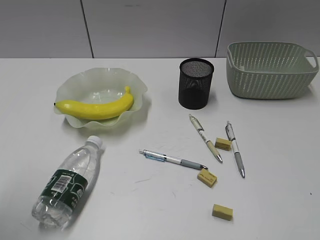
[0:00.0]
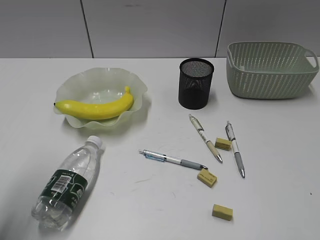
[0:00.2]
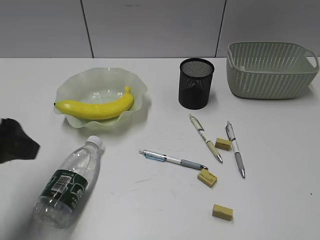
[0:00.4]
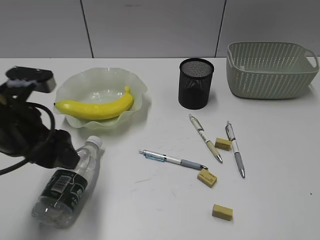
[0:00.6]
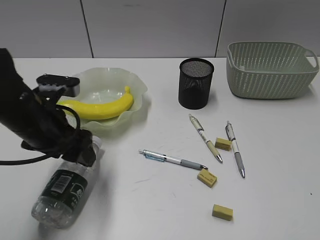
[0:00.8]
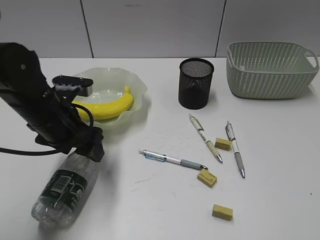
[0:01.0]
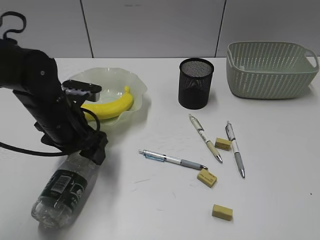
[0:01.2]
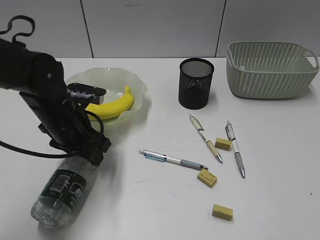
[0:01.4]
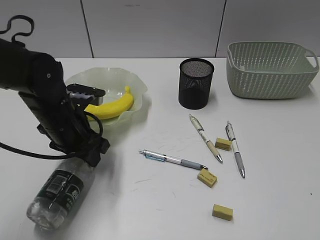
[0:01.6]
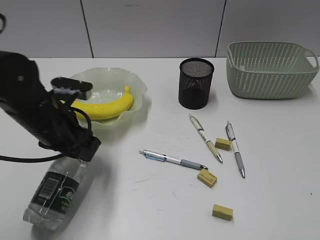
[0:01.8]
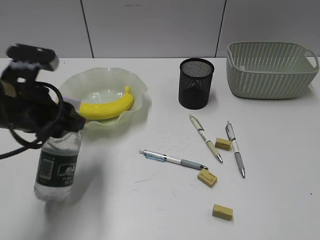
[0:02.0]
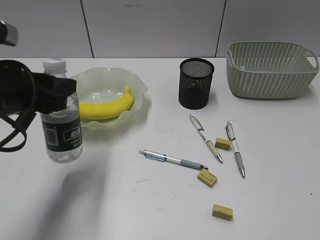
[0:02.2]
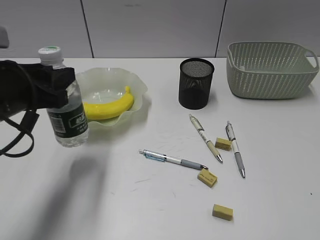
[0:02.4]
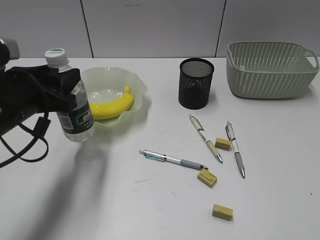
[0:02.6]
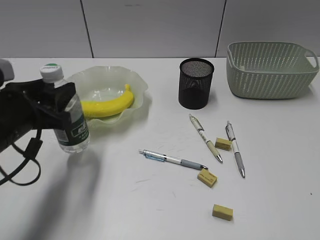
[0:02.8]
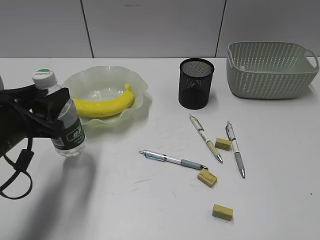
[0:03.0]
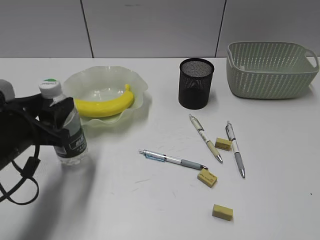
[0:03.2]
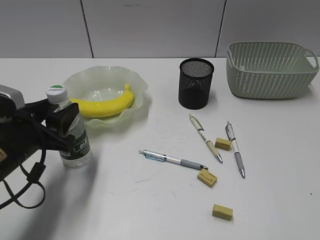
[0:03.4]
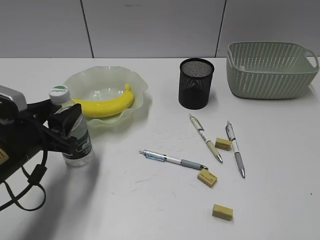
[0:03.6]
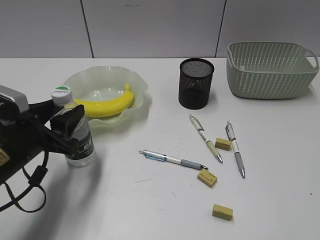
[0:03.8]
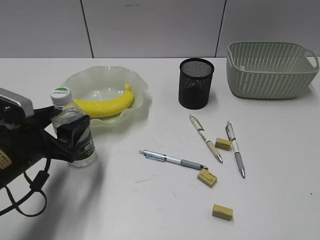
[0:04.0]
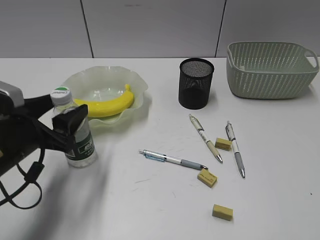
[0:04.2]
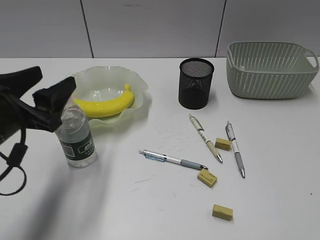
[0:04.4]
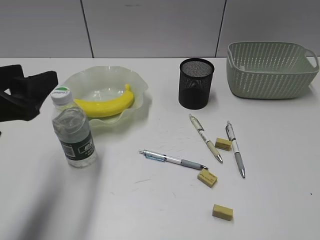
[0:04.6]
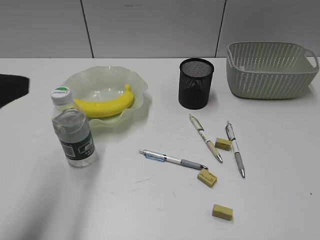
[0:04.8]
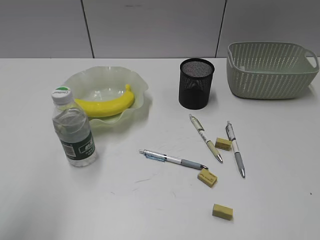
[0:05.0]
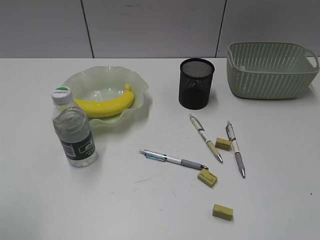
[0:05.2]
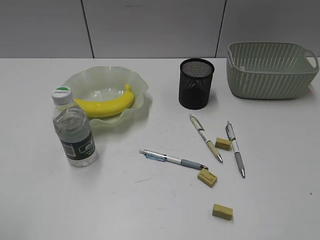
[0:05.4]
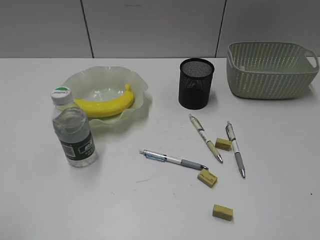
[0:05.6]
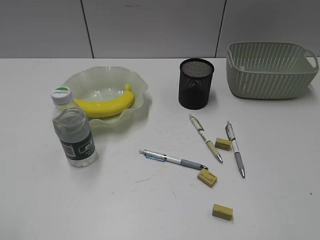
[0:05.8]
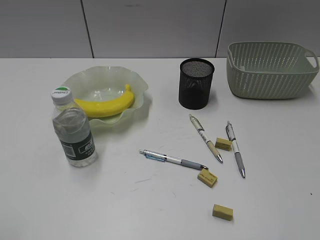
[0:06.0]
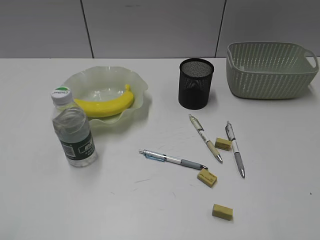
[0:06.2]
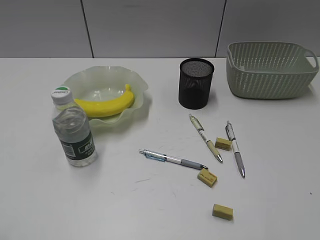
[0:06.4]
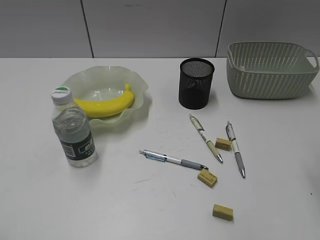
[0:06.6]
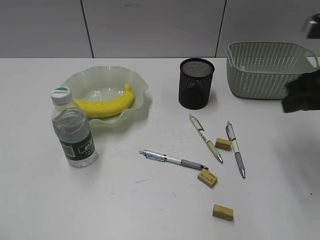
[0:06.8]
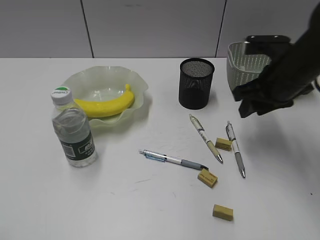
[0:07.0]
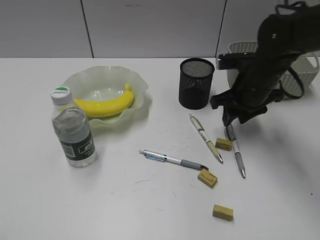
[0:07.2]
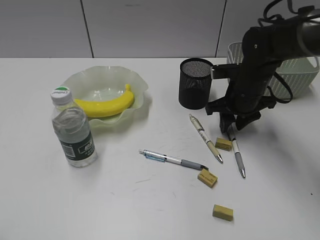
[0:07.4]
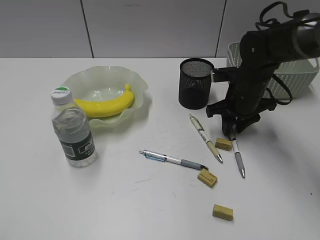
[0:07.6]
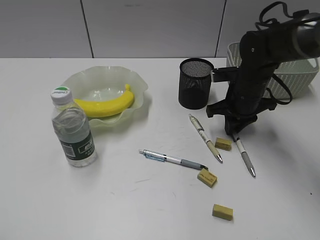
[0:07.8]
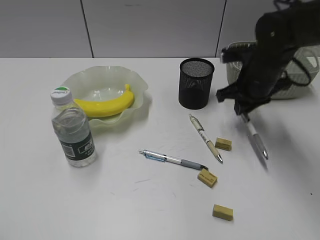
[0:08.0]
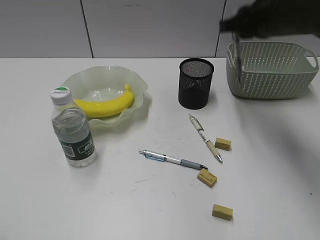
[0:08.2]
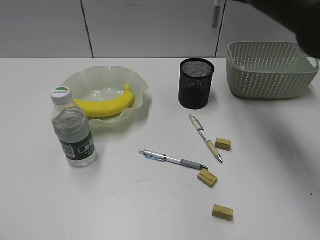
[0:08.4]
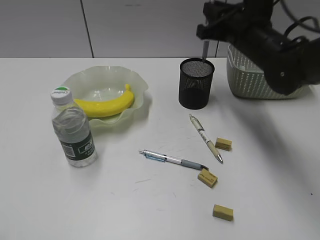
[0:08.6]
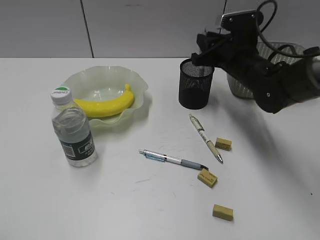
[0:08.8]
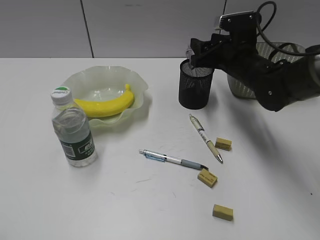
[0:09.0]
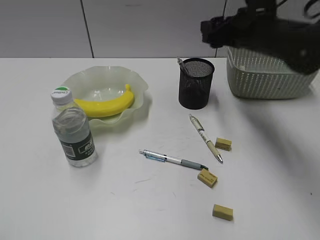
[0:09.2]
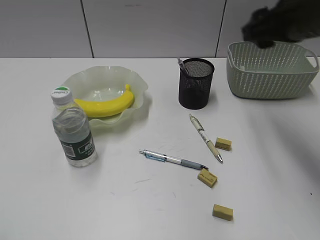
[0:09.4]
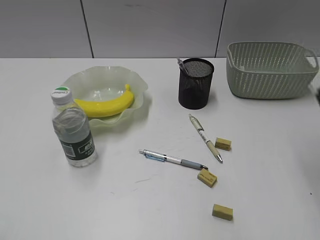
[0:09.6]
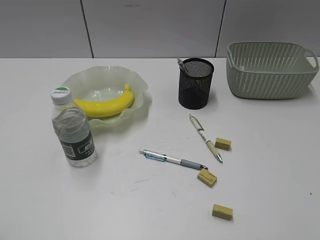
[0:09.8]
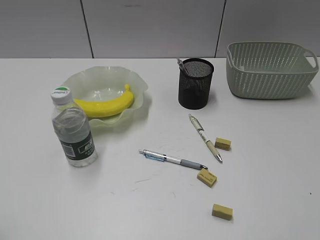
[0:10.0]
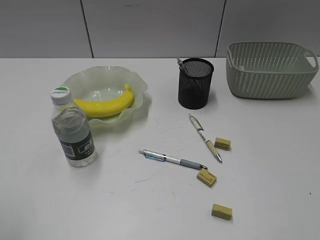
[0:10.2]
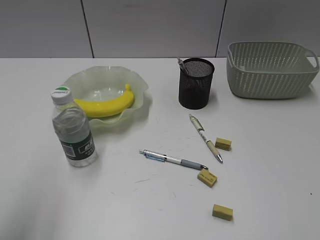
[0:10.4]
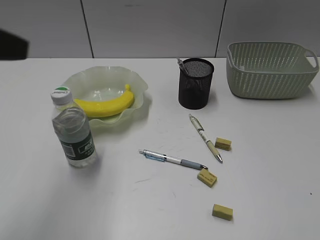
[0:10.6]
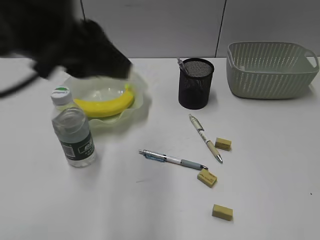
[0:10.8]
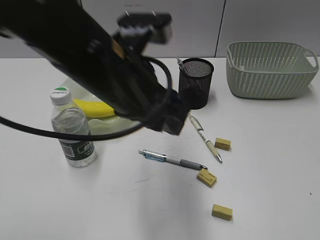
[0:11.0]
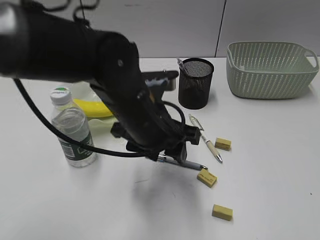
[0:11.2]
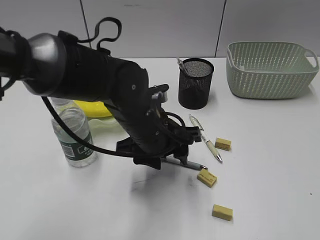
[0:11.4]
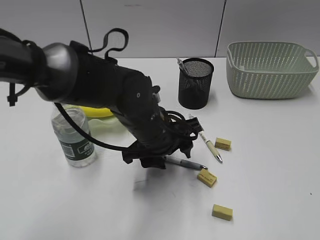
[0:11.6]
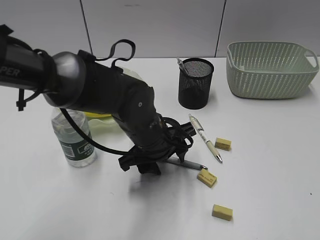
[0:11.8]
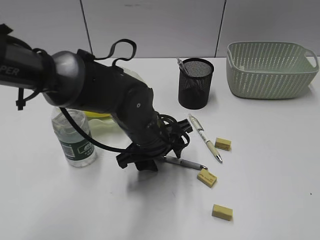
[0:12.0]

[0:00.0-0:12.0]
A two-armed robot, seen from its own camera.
Step, 0:00.0 to 0:01.4: Grasp the bottle with left gripper.
Step, 0:01.6 to 0:04.2: Stand the bottle with left gripper.
Step, 0:04.4 to 0:07.8: Grasp the gray pen with right gripper.
Step, 0:08.0 to 0:09.0: Place the gray pen in pen holder with right gripper.
0:00.0 to 0:01.6: The left gripper moves forward, downward and to the right, about 30 cm.
0:01.6 to 0:03.0: The left gripper travels backward and to the left by about 10 cm.
0:03.0 to 0:04.4: The left gripper opens up.
0:04.4 to 0:06.0: The left gripper moves backward, to the left and upward, some 25 cm.
0:06.0 to 0:07.6: The right gripper is displaced forward and downward by roughly 40 cm.
0:07.6 to 0:09.0: The right gripper travels upward and back again, roughly 20 cm each way, and opens up.
0:09.0 to 0:10.4: The left gripper shifts roughly 10 cm forward; the right gripper is displaced backward and to the right by approximately 40 cm.
0:10.4 to 0:12.0: The left gripper heads to the right, downward and forward, covering about 40 cm.

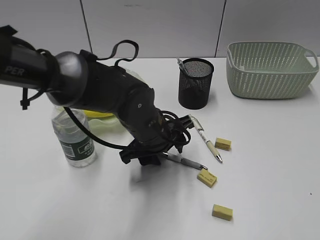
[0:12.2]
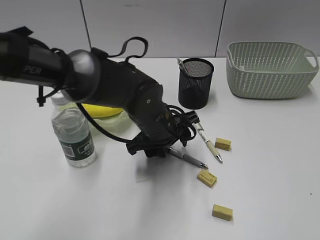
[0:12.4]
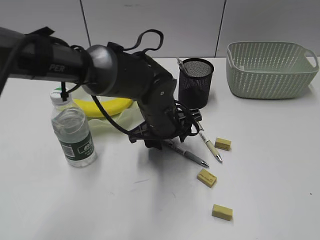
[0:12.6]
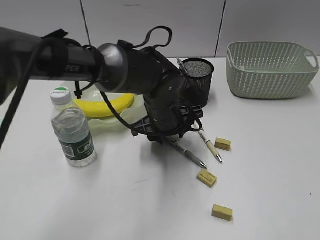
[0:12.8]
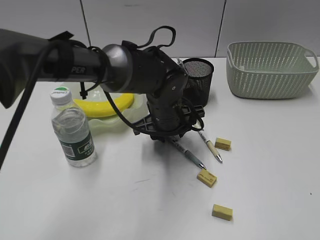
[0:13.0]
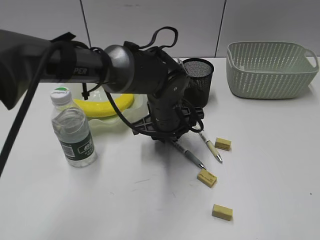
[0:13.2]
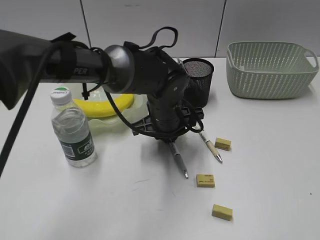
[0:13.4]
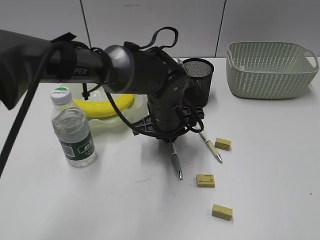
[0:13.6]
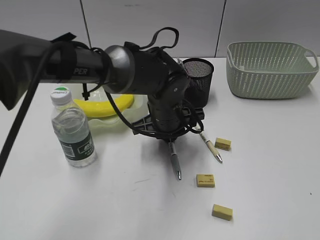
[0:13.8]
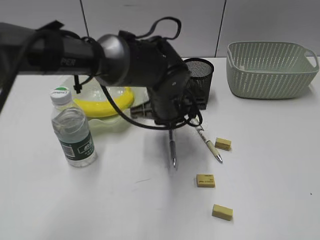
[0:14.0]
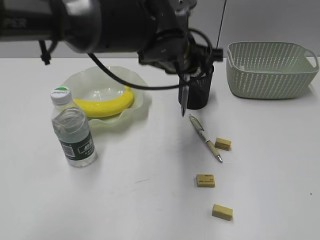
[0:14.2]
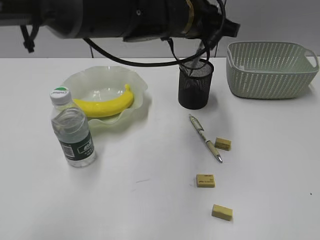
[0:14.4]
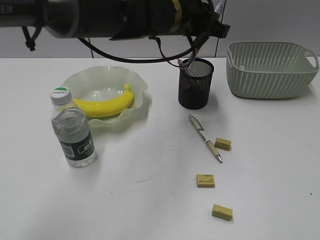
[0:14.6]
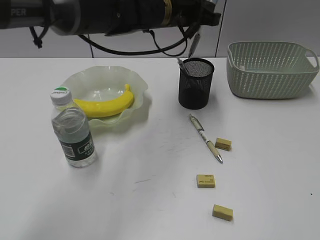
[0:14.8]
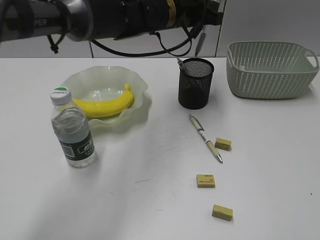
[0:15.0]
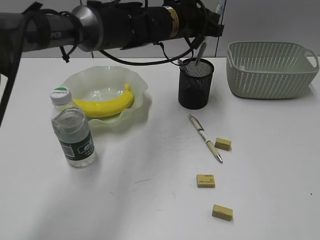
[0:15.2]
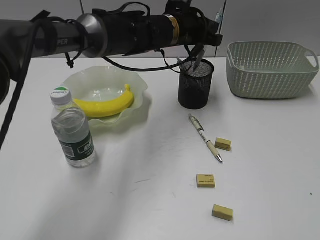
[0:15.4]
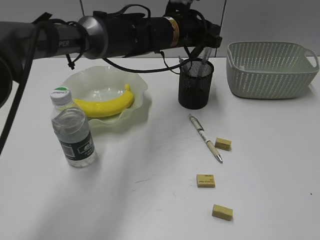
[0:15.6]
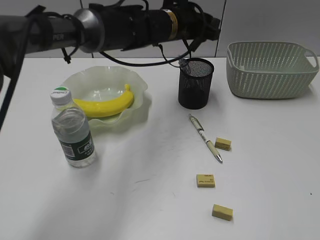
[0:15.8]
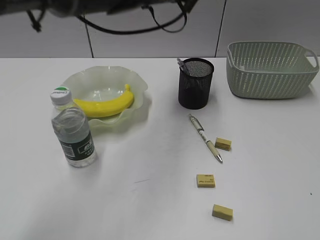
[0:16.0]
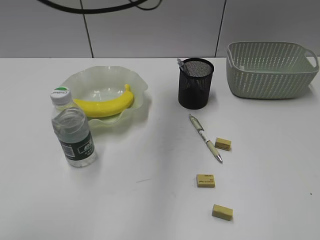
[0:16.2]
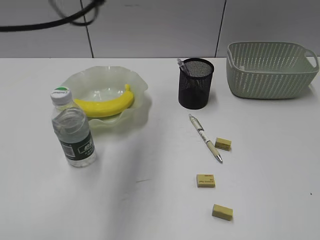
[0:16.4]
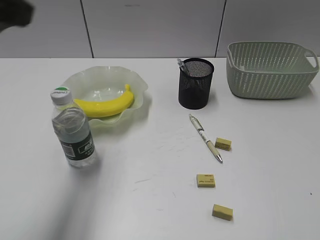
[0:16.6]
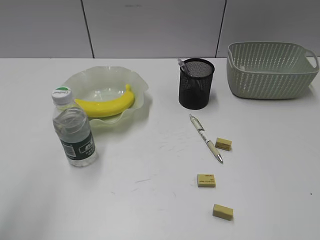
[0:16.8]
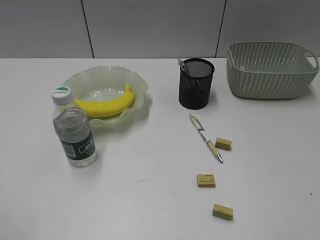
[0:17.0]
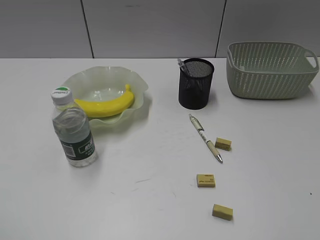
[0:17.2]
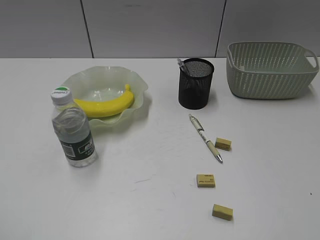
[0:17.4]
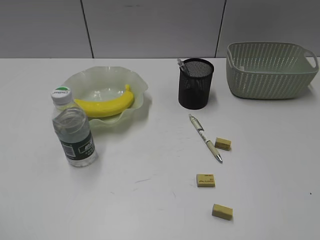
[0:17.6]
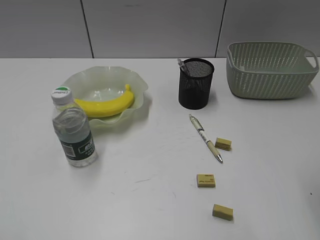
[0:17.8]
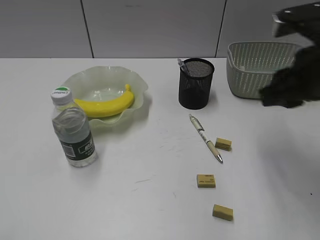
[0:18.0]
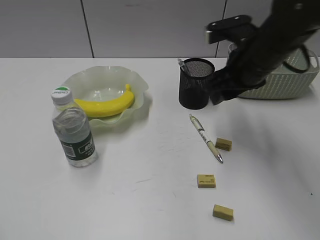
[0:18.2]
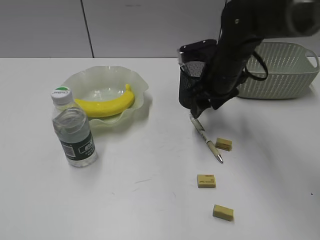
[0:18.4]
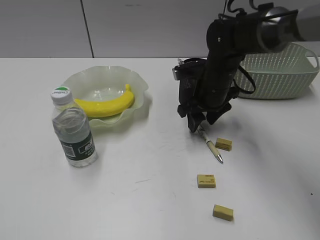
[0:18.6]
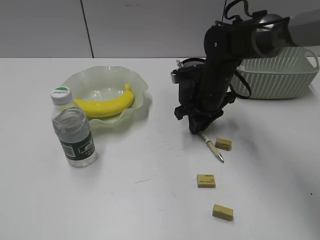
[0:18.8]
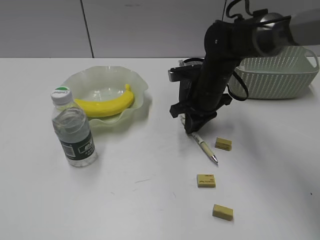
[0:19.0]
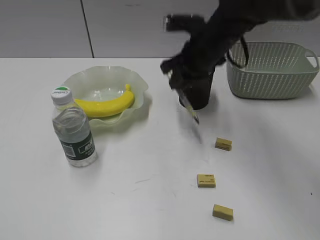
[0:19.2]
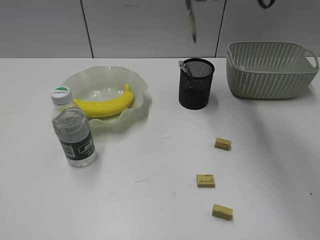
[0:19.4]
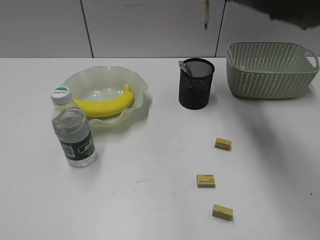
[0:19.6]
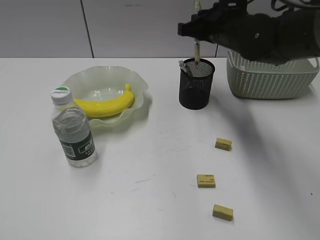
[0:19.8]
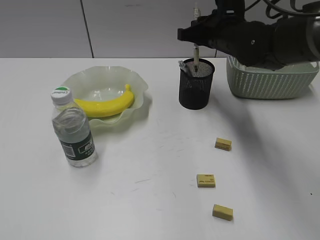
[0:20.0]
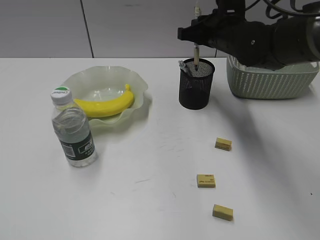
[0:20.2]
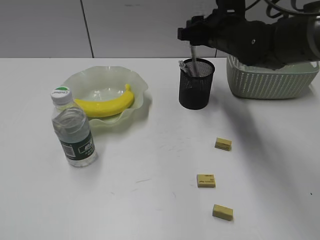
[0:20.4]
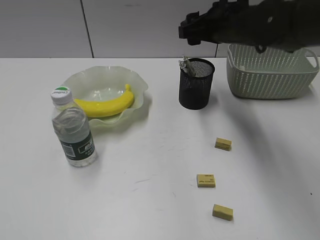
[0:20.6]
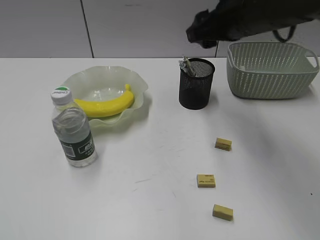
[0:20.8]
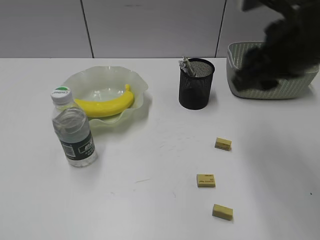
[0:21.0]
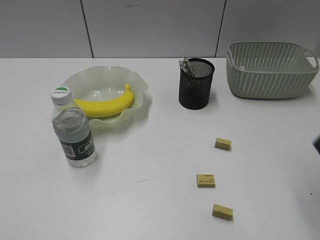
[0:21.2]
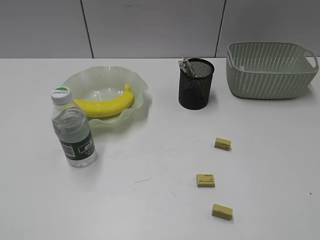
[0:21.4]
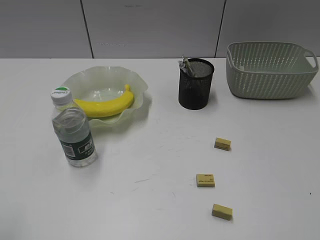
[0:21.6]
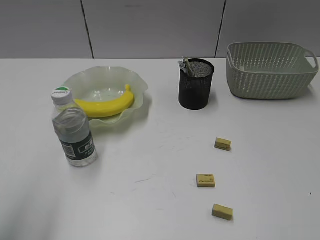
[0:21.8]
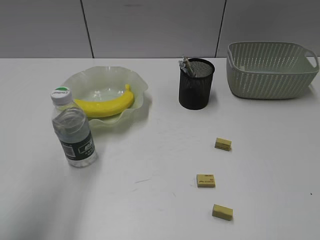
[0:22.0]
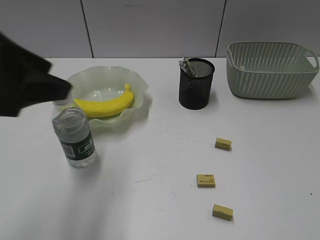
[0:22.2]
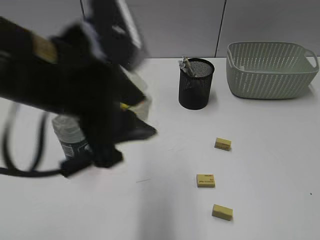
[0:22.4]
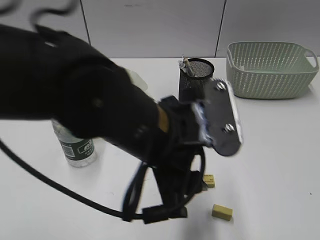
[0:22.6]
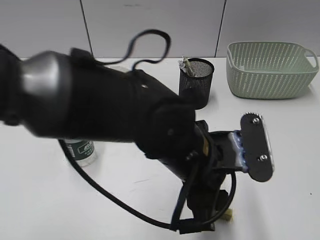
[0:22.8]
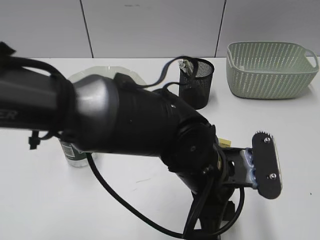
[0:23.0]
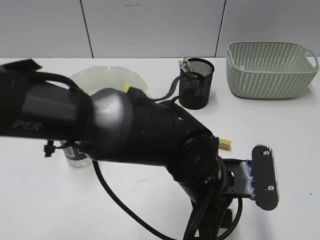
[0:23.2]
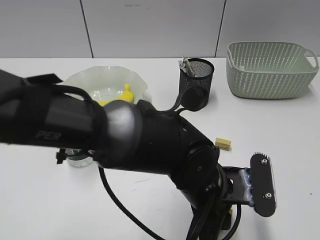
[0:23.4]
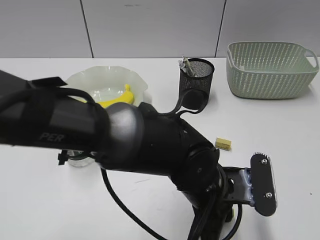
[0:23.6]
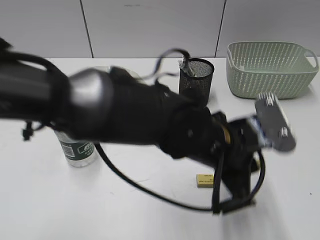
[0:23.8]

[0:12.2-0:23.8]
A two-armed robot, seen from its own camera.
Step, 0:13.8 to 0:15.6: Place the blue pen in pen holder with left gripper.
Step, 0:15.8 to 0:18.8: Grasp the yellow pen with right gripper.
Step, 0:19.0 to 0:20.4: Place the yellow pen in pen holder with right gripper.
Step, 0:20.6 to 0:23.6: Grasp the eraser with left gripper.
0:12.2 to 0:13.6: The left gripper moves some 5 cm, and closes up.
0:13.6 to 0:15.0: The left gripper heads upward and forward, covering some 15 cm.
0:15.0 to 0:16.6: The left gripper is displaced backward, to the left and upward by approximately 35 cm.
0:16.6 to 0:18.0: The left gripper moves backward, to the left and downward, about 25 cm, and opens its fingers, while the right gripper shifts some 30 cm forward and to the left.
0:18.0 to 0:19.4: The right gripper moves forward and to the left, approximately 15 cm, goes downward and returns, some 15 cm each way, and opens, then closes again.
0:19.4 to 0:21.0: The right gripper goes some 15 cm backward and to the right, and opens up.
0:21.0 to 0:22.4: The right gripper moves backward and to the right, about 30 cm. The left gripper moves to the right and forward, roughly 30 cm.
0:22.4 to 0:23.8: The left gripper is displaced to the right and downward by approximately 20 cm, and closes its fingers.
